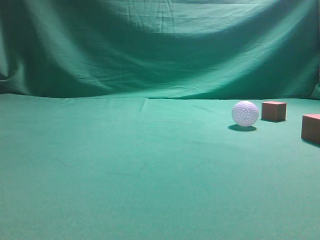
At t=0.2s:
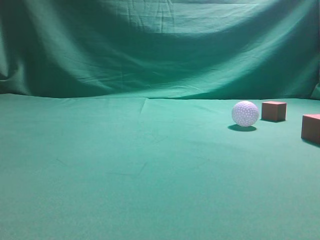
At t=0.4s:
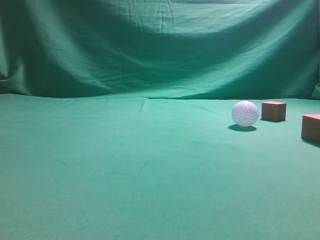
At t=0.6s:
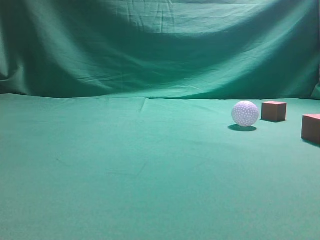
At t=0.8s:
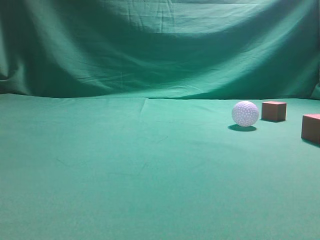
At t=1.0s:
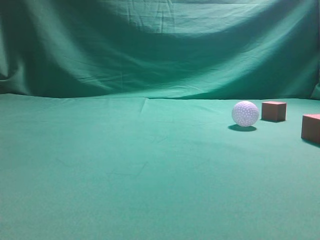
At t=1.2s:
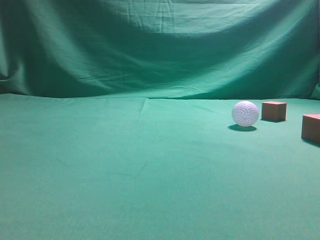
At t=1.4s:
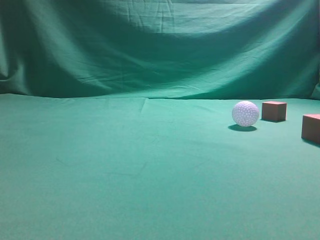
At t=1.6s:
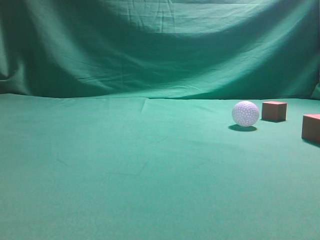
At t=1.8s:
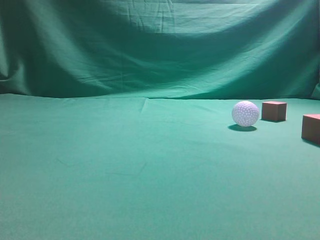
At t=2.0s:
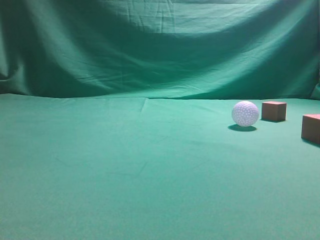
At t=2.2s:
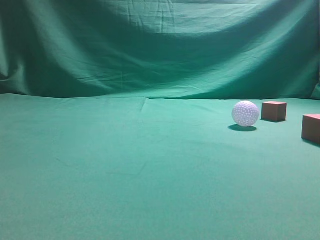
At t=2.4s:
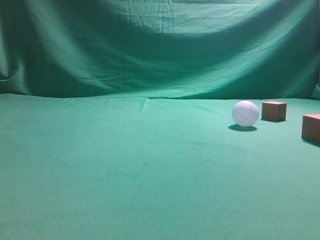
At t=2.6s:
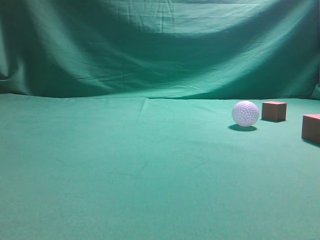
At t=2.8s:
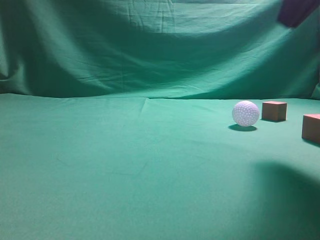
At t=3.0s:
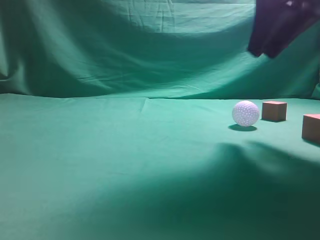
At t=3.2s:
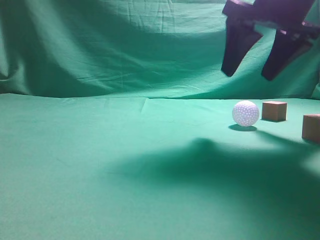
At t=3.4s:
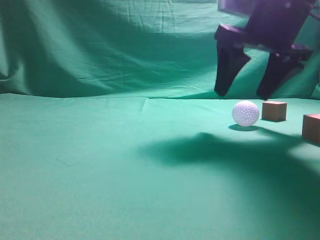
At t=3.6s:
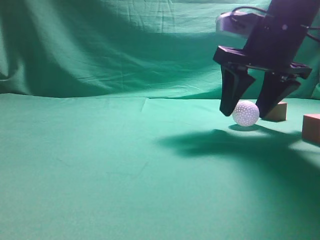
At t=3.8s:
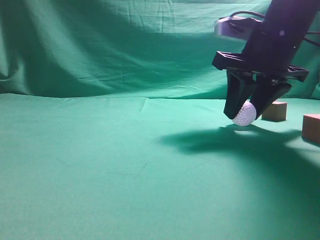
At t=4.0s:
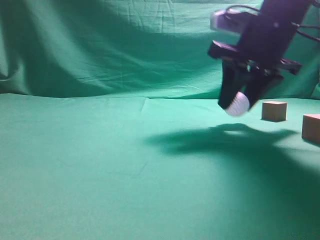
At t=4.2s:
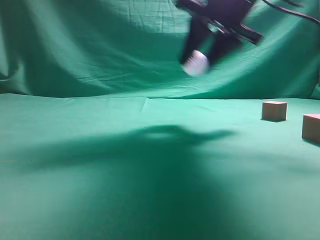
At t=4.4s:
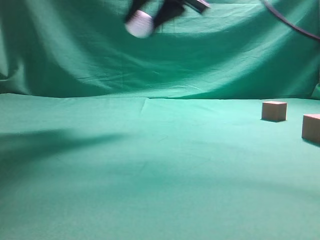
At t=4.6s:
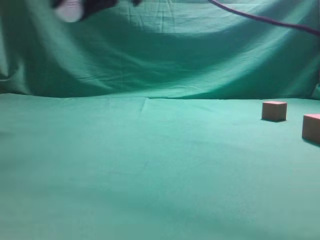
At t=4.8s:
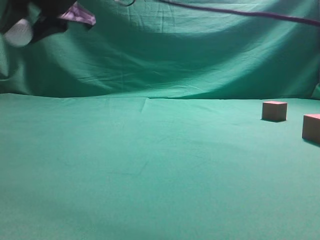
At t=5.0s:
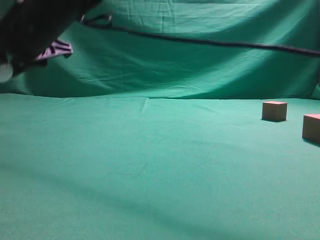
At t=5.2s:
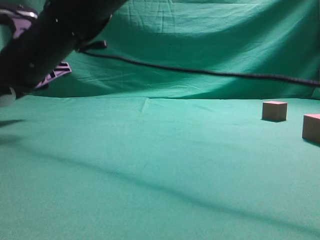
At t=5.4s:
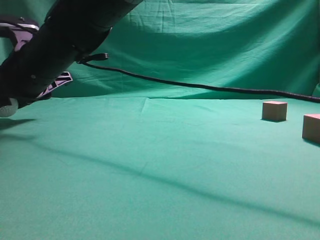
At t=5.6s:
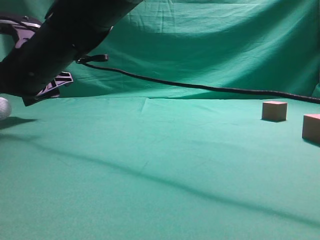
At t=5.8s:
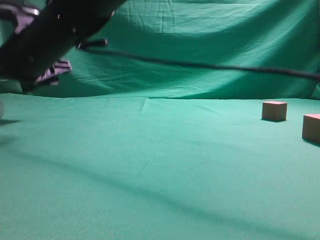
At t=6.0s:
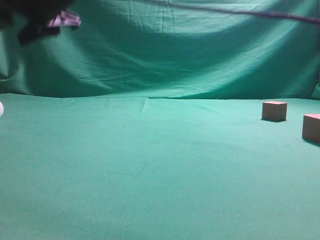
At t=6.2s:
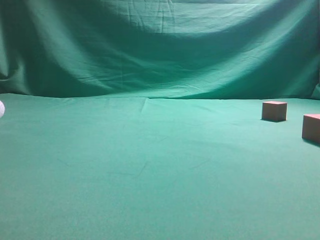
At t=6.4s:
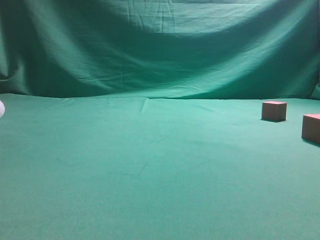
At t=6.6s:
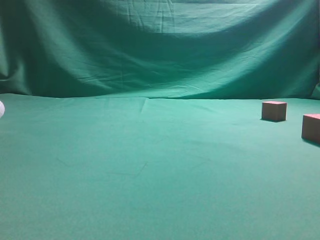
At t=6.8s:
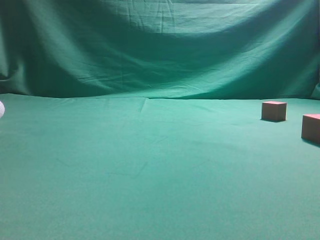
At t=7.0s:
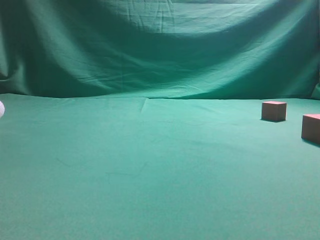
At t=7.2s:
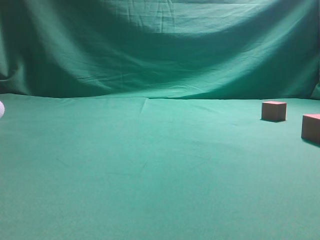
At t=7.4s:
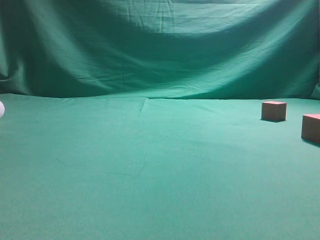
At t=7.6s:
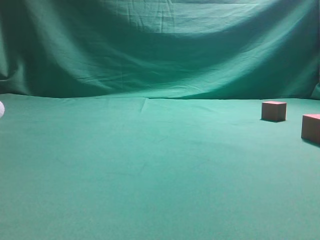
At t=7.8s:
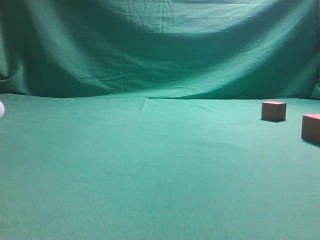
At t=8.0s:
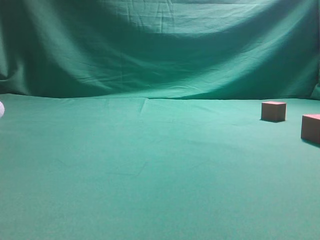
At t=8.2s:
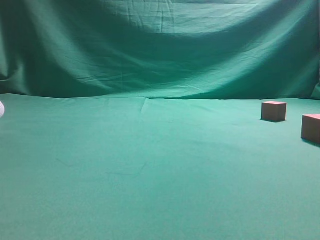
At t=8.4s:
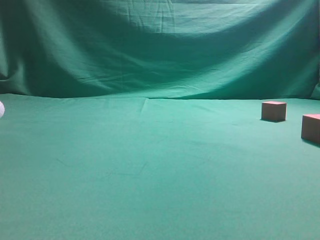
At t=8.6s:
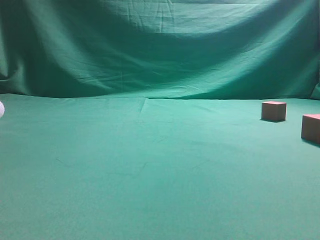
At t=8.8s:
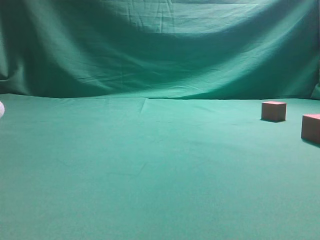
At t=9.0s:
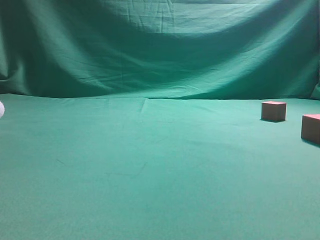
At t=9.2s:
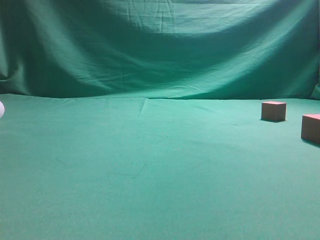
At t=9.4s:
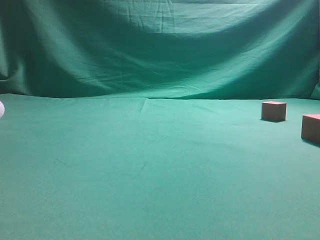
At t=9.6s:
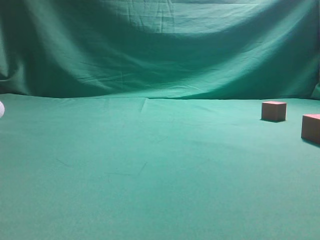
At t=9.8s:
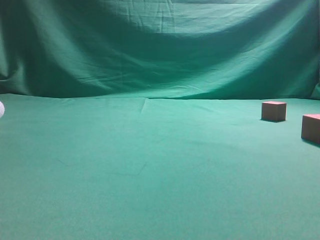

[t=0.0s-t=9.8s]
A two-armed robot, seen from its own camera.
Step, t=0.0s to t=3.4s: Grasp the spherical object on the right side.
t=1.4s to t=2.8s: The right gripper travels forward and to the left by roughly 30 cm, and opens its fingers.
t=2.8s to t=4.2s: The right gripper is displaced to the left by roughly 20 cm.
t=4.2s to t=5.6s: The right gripper shifts about 15 cm to the left and downward.
t=5.6s to t=7.0s: The right gripper is displaced to the right, backward and upward by about 40 cm, and closes.
